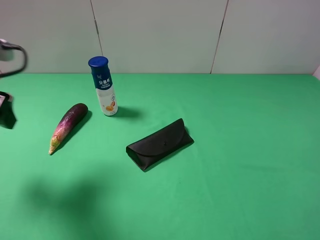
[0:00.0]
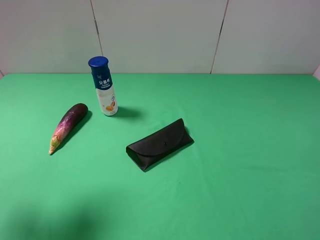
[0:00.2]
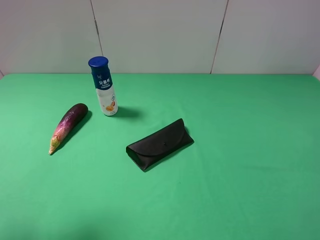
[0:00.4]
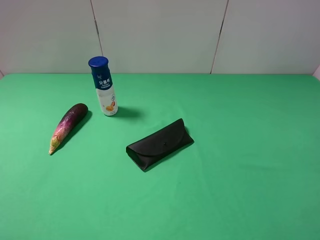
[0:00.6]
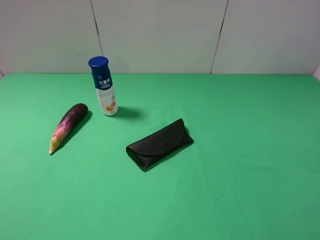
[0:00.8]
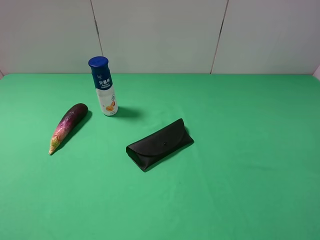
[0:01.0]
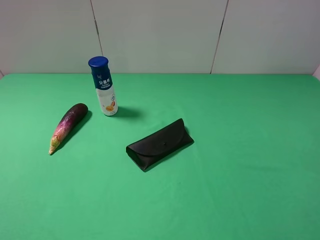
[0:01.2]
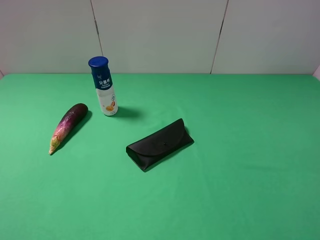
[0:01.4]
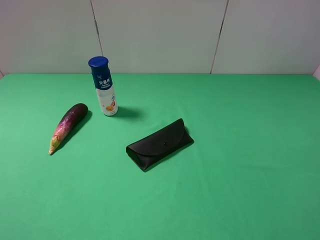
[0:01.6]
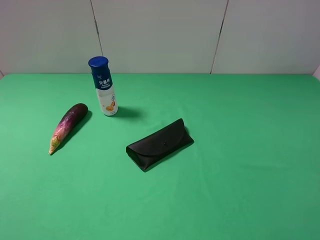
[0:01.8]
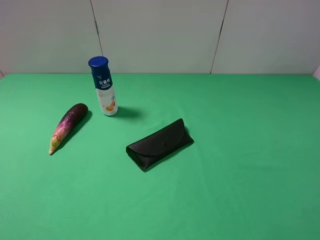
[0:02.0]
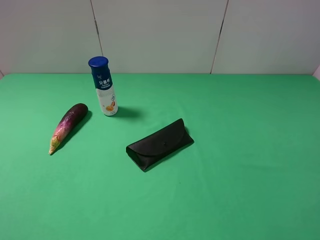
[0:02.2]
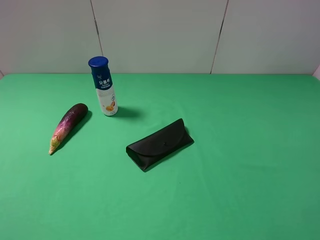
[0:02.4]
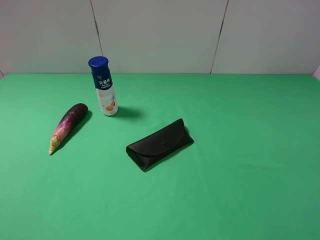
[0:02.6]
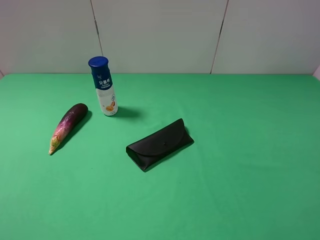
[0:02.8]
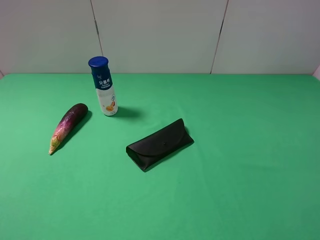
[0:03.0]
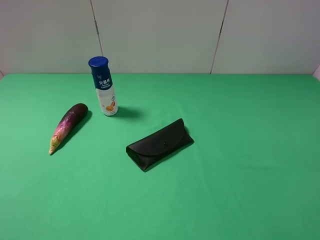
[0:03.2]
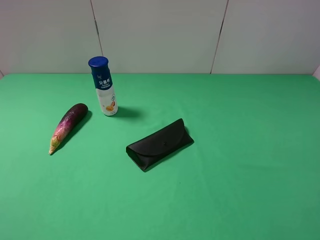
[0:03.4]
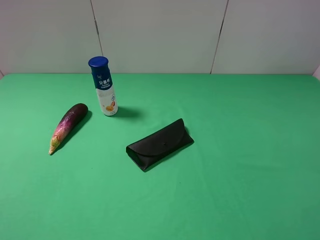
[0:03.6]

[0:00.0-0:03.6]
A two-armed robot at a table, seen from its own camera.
Task of the whole recording: use the right gripper to pick up the item and transfer it from the right gripper to the left gripper.
0:00.0 to 0:01.8: The left gripper heads backward, covering some 20 cm.

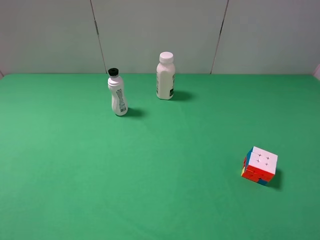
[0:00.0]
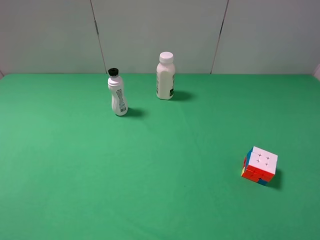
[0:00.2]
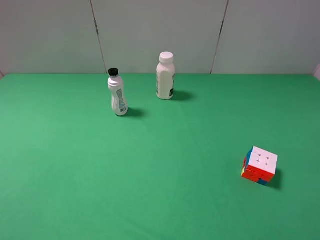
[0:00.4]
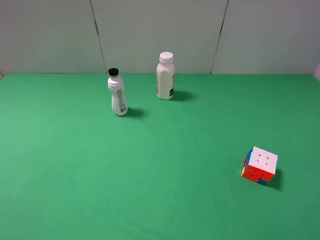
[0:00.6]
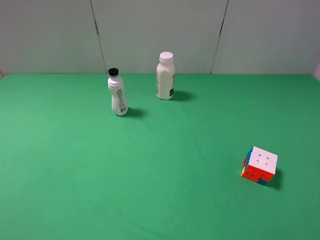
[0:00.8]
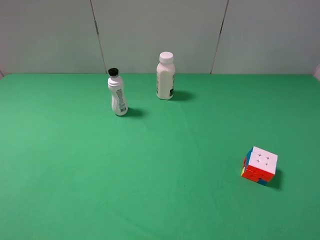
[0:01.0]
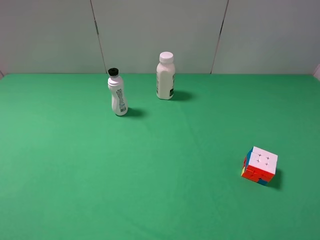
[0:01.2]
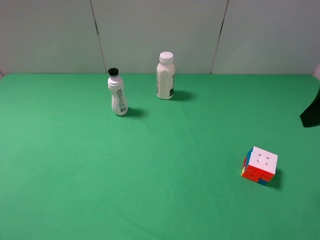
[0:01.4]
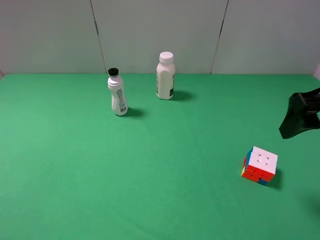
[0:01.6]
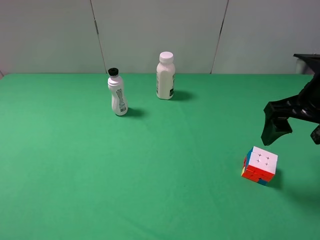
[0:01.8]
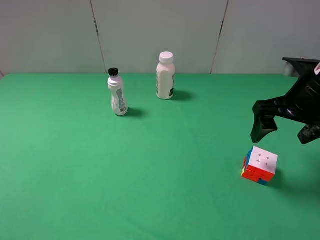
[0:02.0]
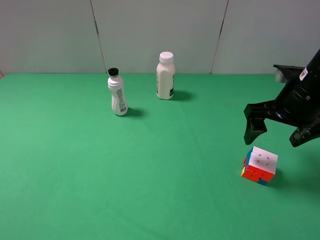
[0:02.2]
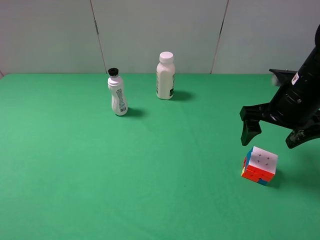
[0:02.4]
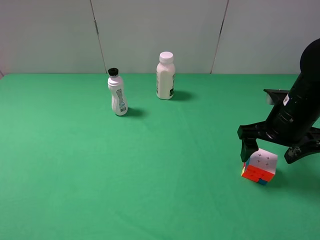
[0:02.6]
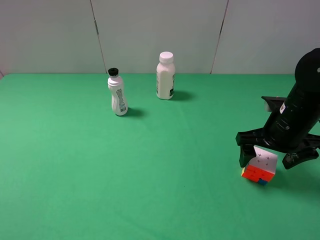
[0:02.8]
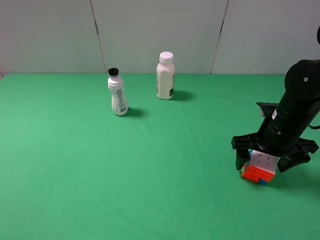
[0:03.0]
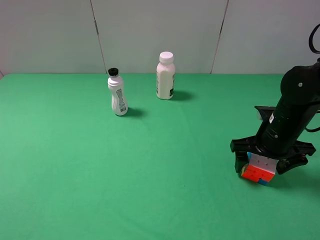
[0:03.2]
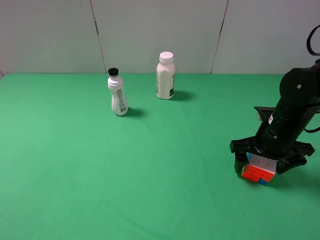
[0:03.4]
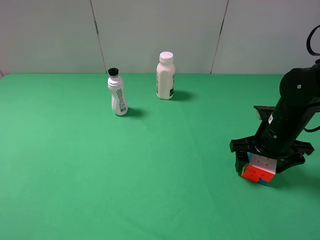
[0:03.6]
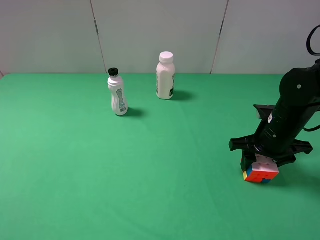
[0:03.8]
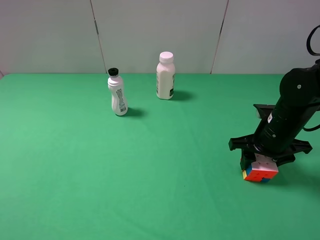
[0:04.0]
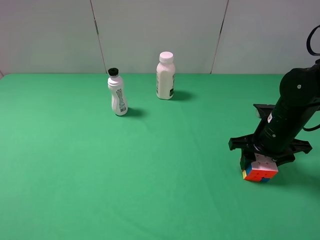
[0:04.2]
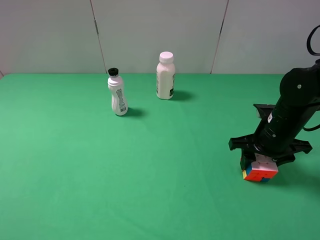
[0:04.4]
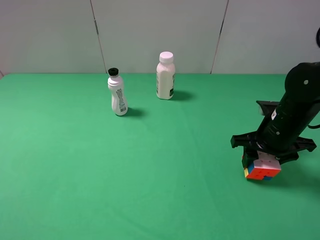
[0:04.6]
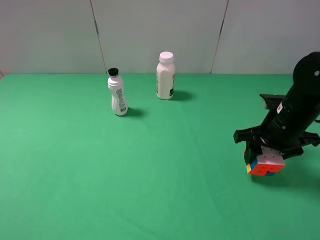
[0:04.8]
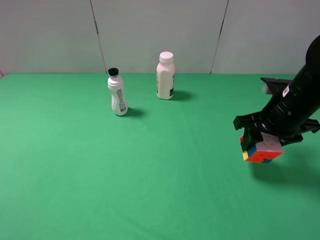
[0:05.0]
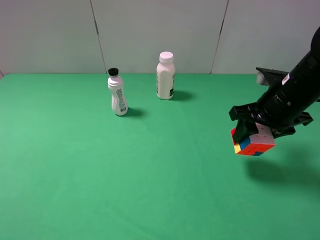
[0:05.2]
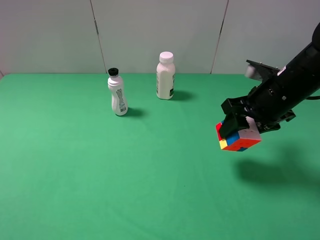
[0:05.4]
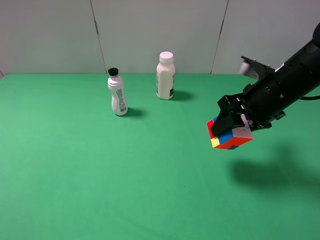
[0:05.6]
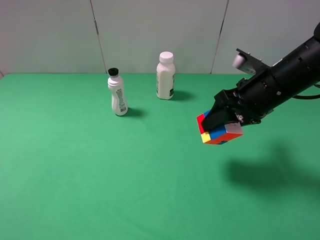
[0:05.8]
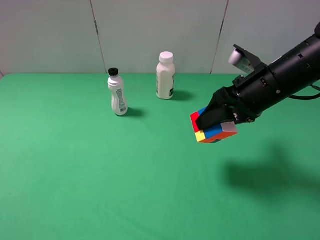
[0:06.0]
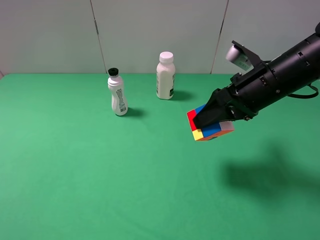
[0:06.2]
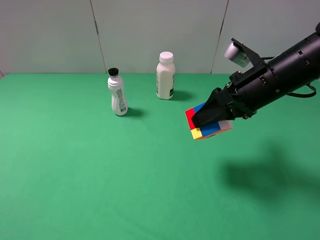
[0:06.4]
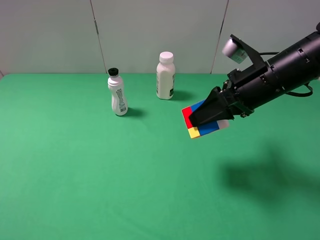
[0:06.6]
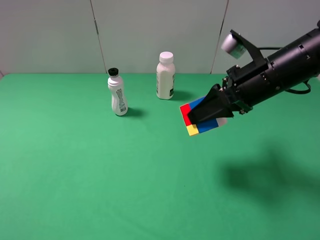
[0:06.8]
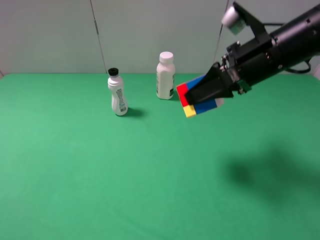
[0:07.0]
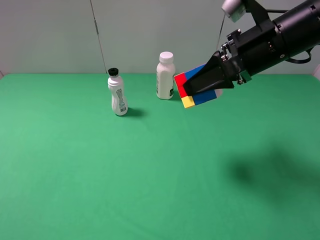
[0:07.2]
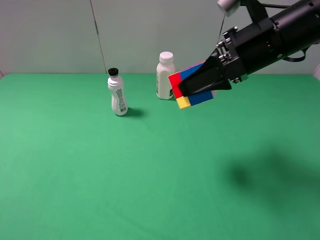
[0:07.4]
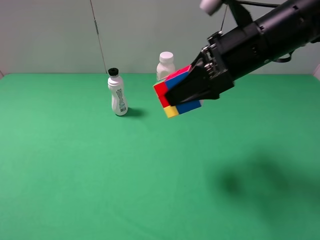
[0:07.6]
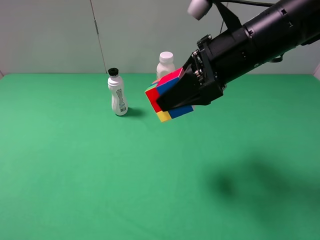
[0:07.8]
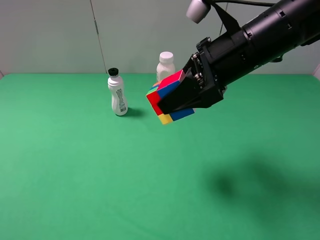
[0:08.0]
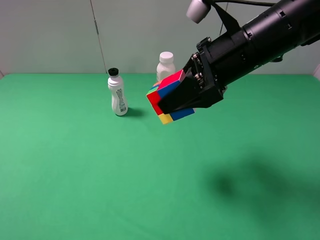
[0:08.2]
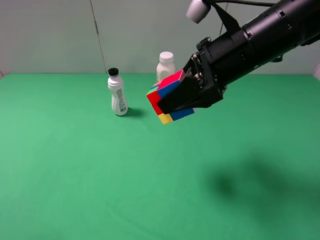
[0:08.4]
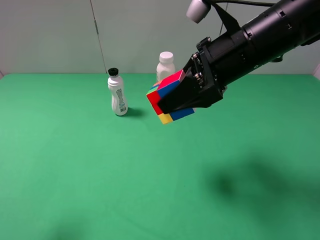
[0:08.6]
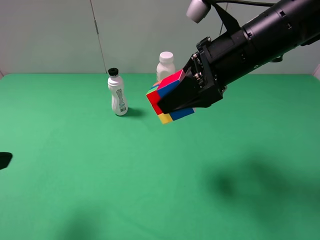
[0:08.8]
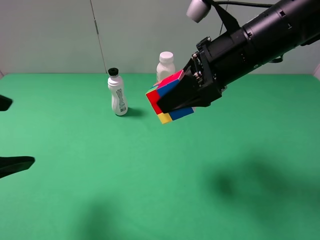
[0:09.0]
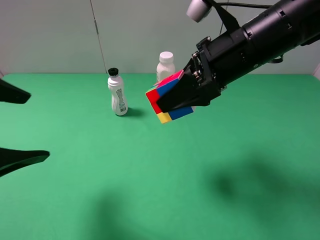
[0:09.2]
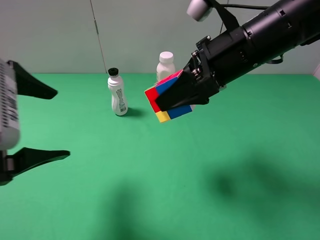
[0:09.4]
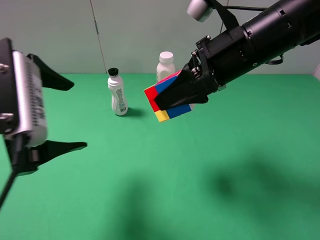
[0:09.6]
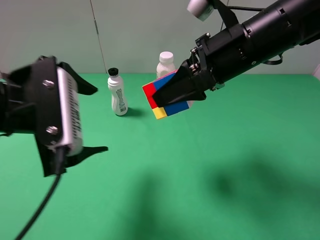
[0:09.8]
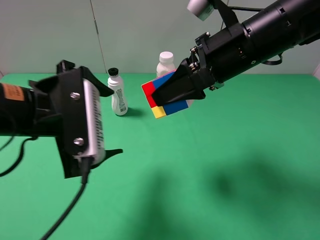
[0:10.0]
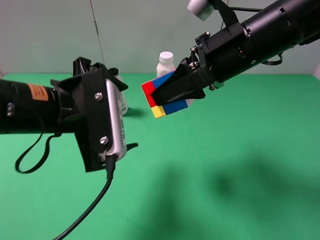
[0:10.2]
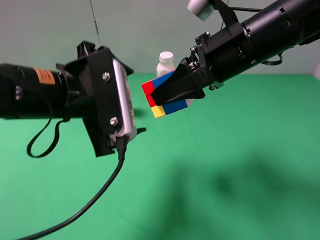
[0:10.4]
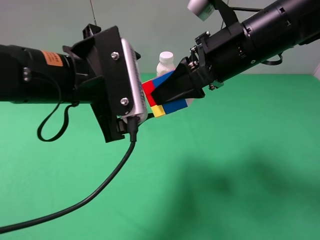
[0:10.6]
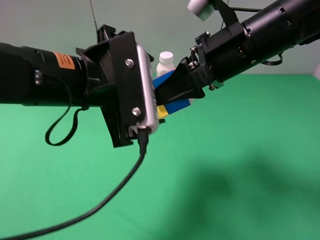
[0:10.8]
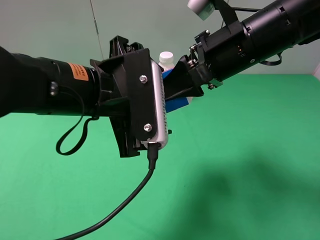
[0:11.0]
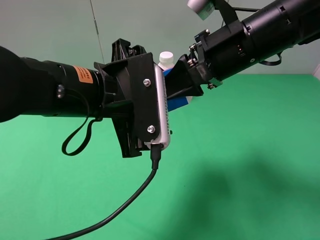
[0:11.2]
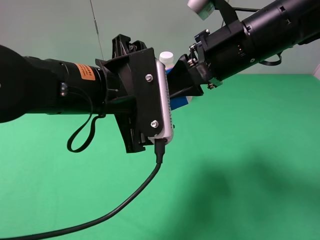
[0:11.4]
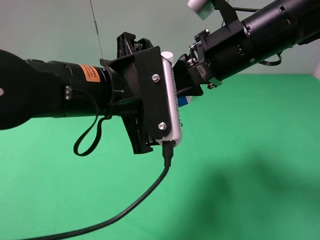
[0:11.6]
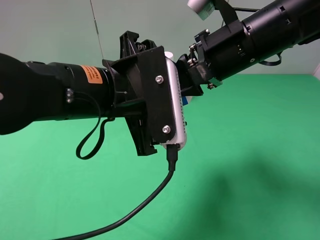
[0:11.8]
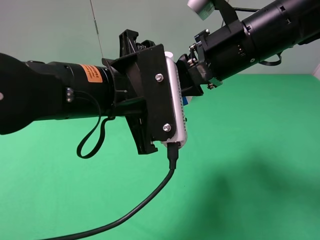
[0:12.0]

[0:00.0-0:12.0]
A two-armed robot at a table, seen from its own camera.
Task of the whole recording: use the right gripper to pick up the item and transfer it from the right gripper to the left gripper.
Step, 0:00.0 to 0:04.0: Use the right gripper to grab the Rubik's Cube on the right side of the table.
0:00.0 to 0:01.6: The right gripper moves forward, some 20 cm.
0:01.6 to 0:03.0: The right gripper shifts some 15 cm downward.
0:03.0 to 0:04.4: The right gripper closes.
0:04.4 to 0:06.0: The right gripper shifts about 10 cm upward and to the left.
0:06.0 to 0:07.6: The right gripper travels upward and to the left by approximately 10 cm.
0:07.6 to 0:09.0: The left gripper moves forward and to the right, roughly 15 cm.
0:09.0 to 0:10.4: The left gripper travels to the right and forward by roughly 15 cm.
0:10.4 to 0:12.0: The left gripper goes approximately 5 cm to the right, and closes up.

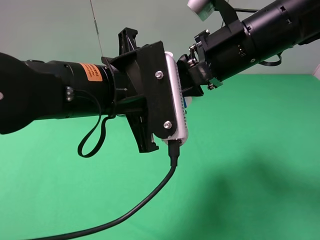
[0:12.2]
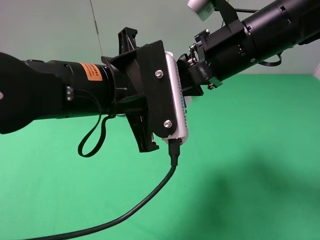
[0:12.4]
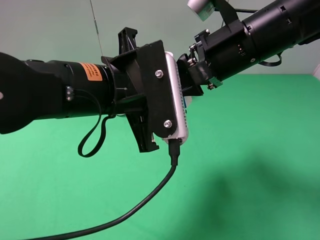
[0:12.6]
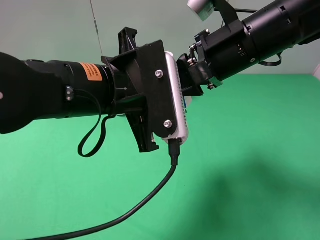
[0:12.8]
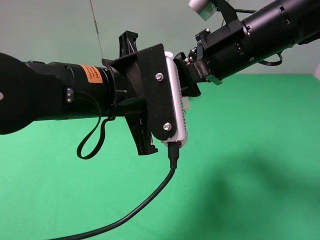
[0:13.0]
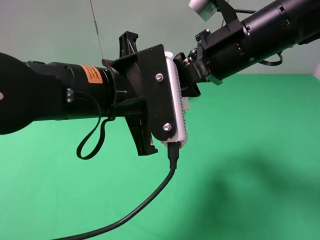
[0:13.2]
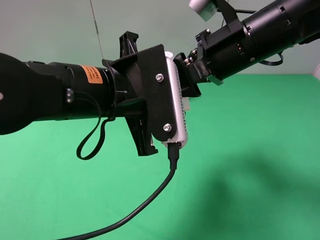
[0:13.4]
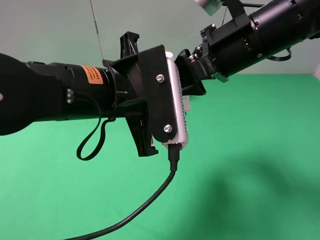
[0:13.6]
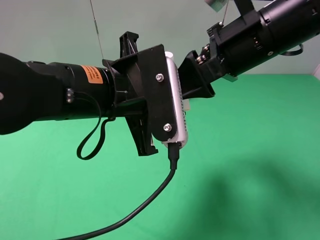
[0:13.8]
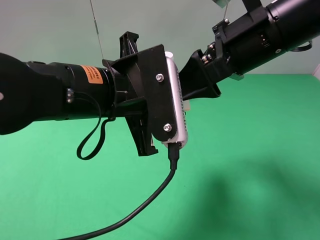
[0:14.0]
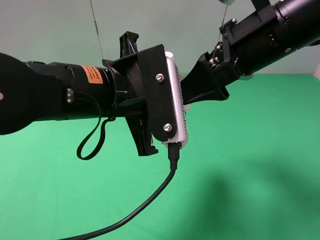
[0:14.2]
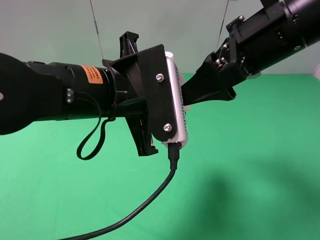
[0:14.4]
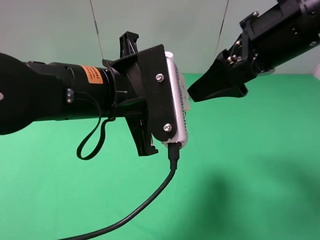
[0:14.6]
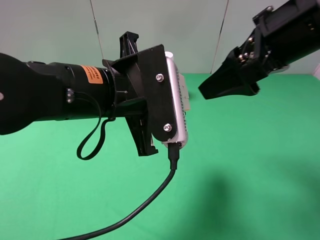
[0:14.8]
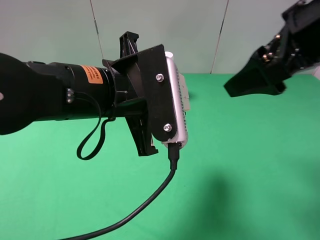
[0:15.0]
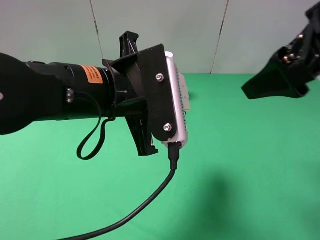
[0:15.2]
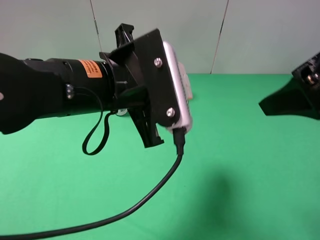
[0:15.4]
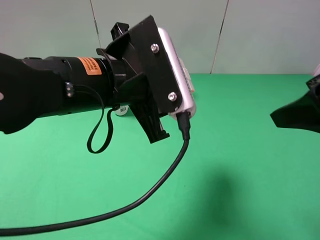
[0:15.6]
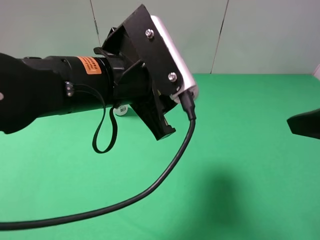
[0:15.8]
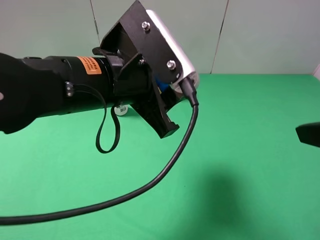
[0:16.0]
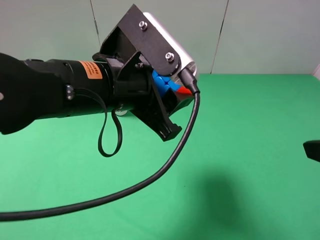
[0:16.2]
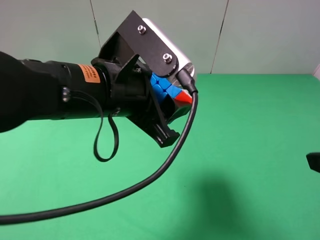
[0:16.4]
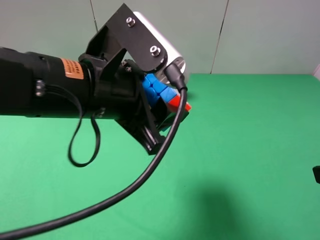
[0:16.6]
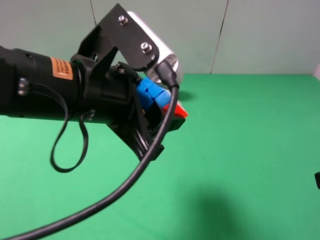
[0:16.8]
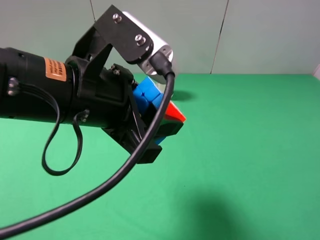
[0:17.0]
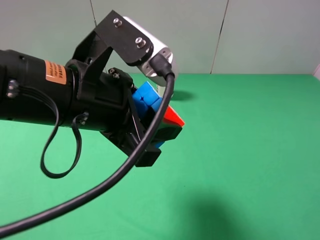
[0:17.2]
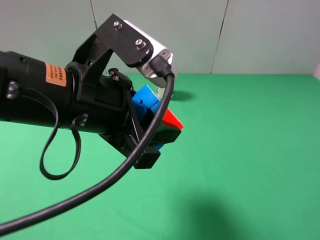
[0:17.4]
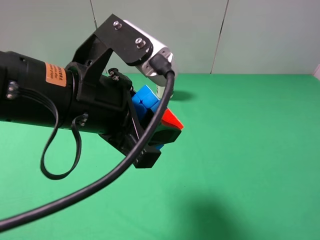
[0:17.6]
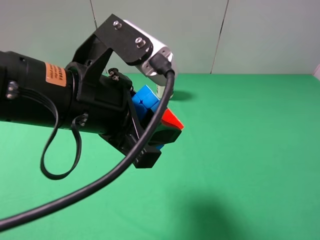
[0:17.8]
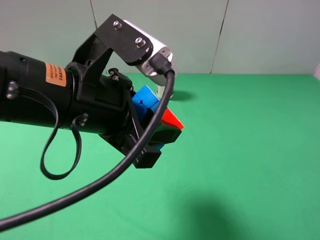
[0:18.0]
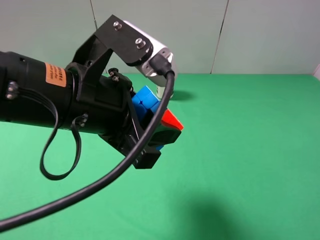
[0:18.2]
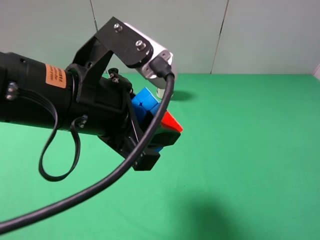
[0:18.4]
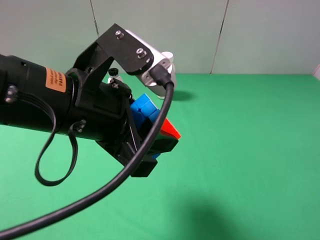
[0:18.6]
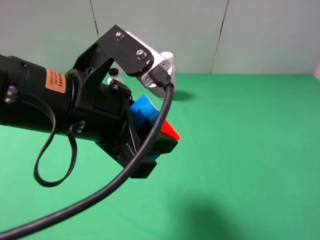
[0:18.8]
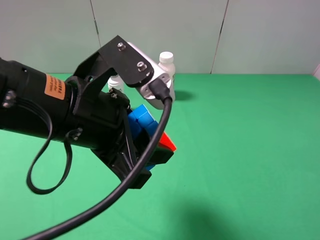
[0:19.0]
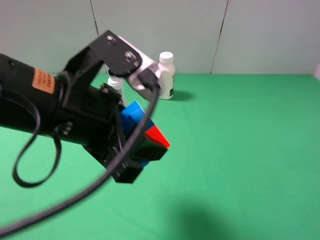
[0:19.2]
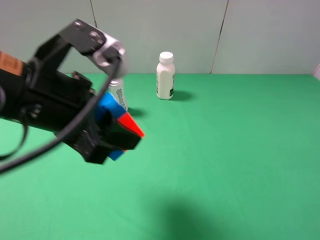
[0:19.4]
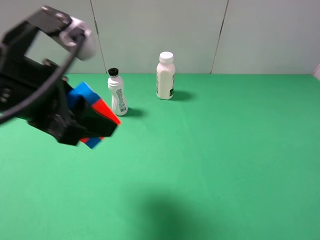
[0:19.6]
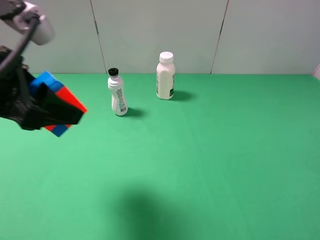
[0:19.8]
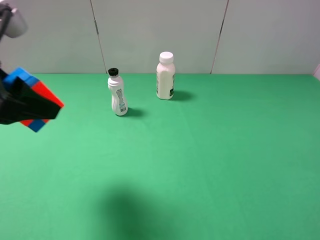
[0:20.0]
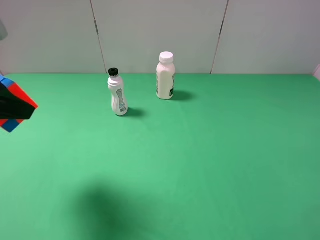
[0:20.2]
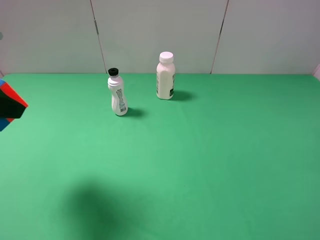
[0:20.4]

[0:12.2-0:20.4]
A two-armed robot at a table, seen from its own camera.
Task of the whole recording: use the right gripper to pick up the item and transfer it from the right gripper to the left gripper.
0:12.2 to 0:13.8: The right gripper opens up.
0:13.8 to 0:15.4: The right gripper is displaced to the right and backward by approximately 15 cm.
0:15.4 to 0:17.2: The right gripper moves backward, downward and to the right, about 15 cm.
0:18.8 to 0:20.4: The left gripper heads to the left, covering approximately 20 cm.
